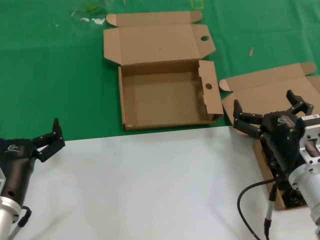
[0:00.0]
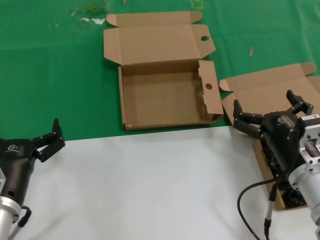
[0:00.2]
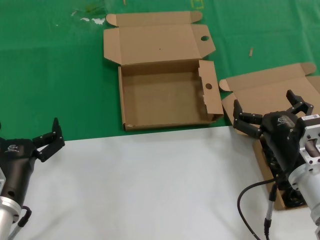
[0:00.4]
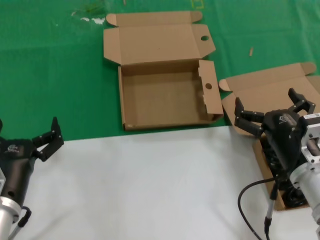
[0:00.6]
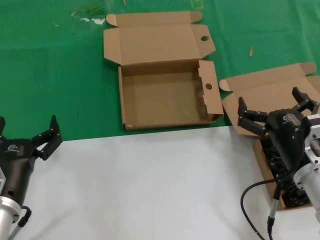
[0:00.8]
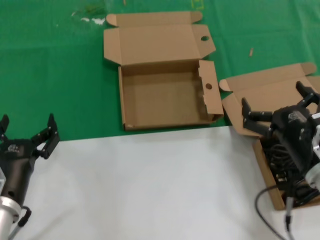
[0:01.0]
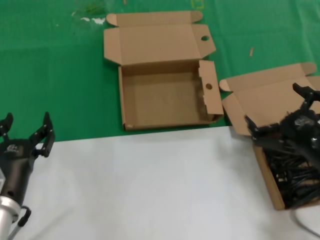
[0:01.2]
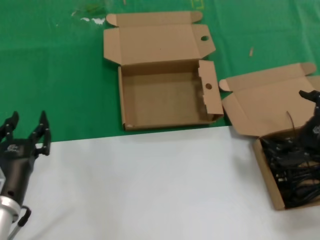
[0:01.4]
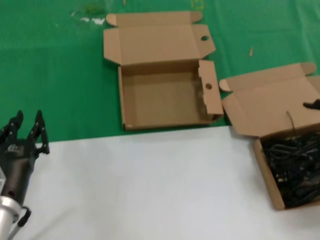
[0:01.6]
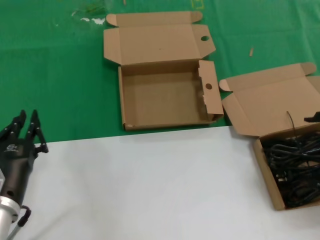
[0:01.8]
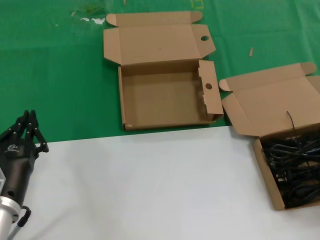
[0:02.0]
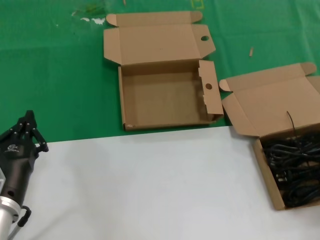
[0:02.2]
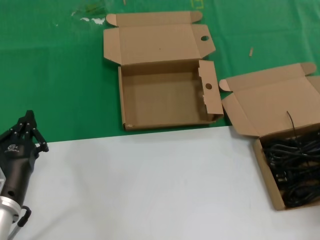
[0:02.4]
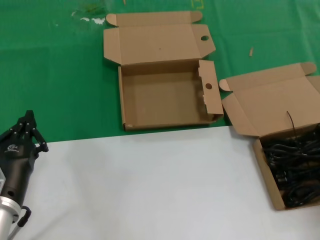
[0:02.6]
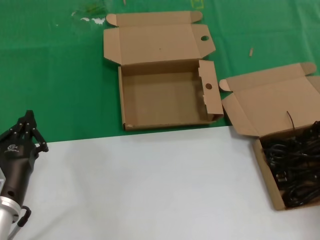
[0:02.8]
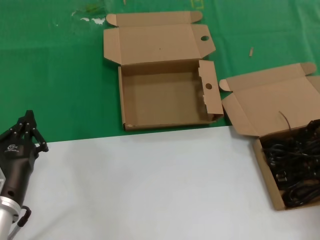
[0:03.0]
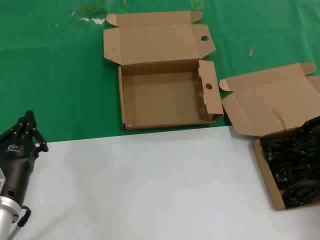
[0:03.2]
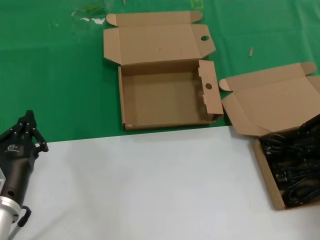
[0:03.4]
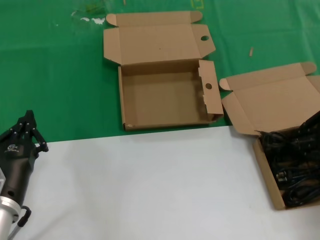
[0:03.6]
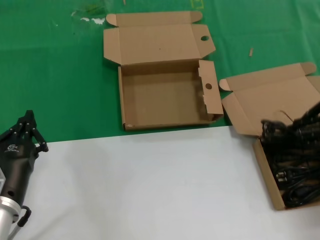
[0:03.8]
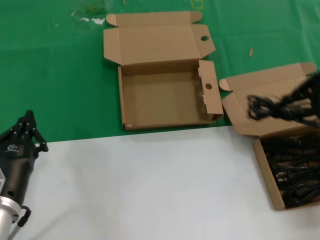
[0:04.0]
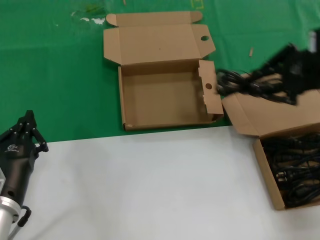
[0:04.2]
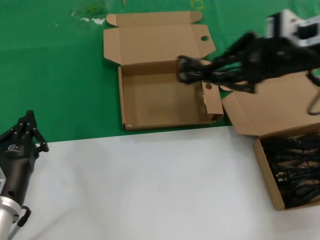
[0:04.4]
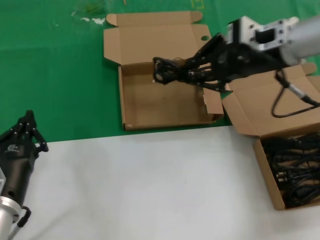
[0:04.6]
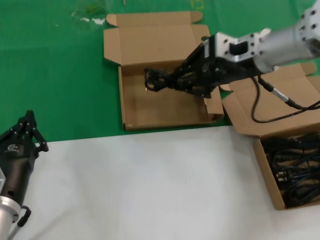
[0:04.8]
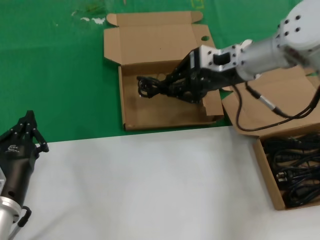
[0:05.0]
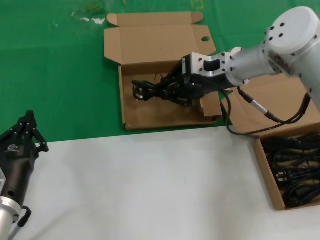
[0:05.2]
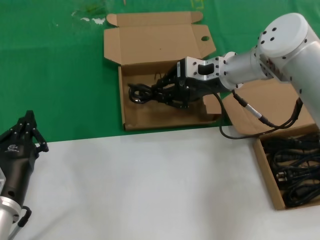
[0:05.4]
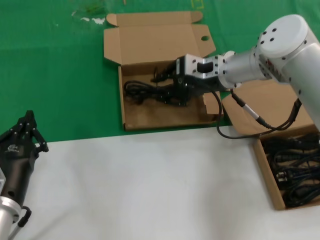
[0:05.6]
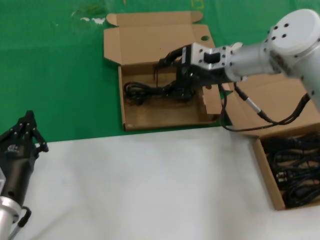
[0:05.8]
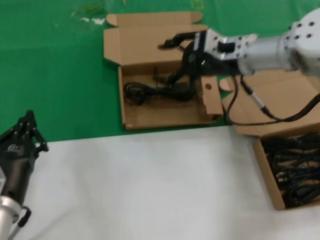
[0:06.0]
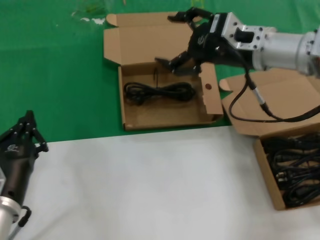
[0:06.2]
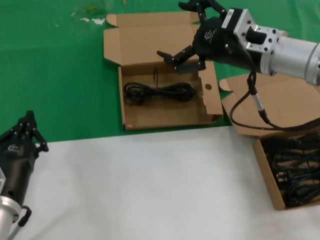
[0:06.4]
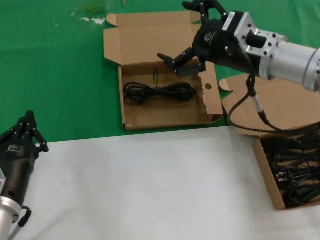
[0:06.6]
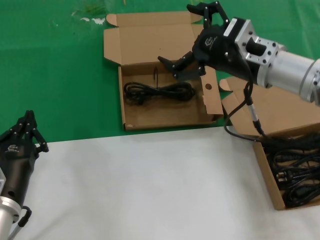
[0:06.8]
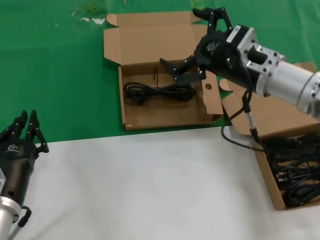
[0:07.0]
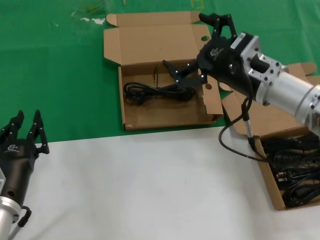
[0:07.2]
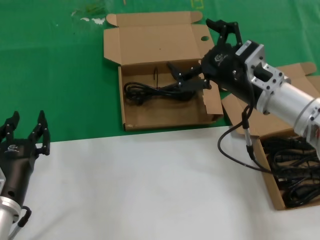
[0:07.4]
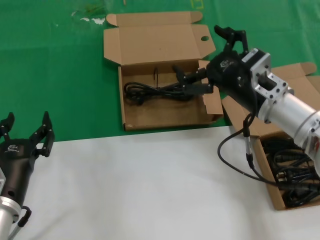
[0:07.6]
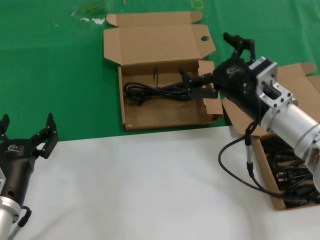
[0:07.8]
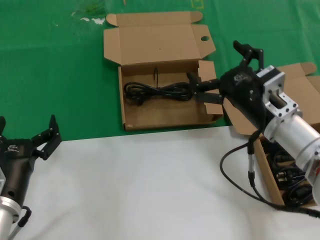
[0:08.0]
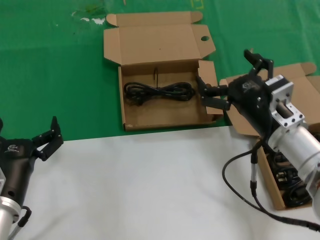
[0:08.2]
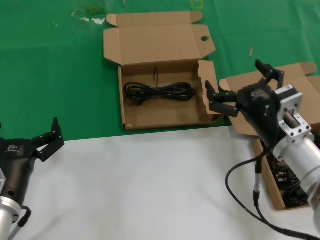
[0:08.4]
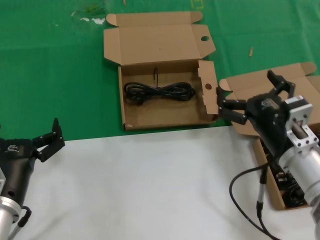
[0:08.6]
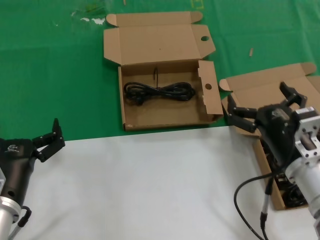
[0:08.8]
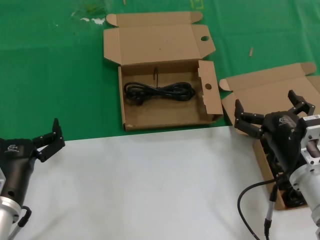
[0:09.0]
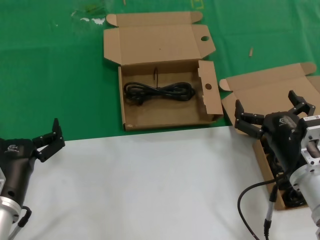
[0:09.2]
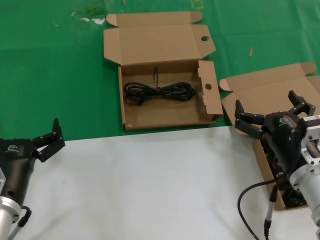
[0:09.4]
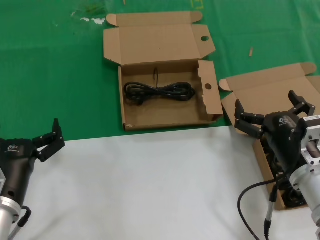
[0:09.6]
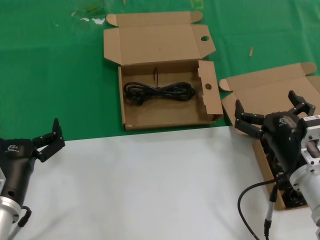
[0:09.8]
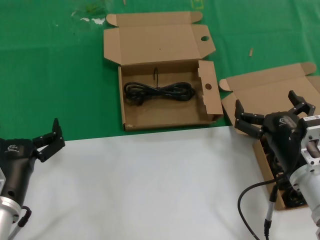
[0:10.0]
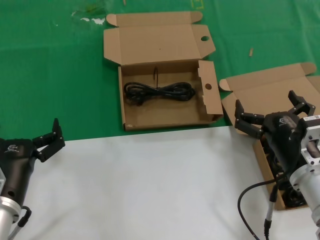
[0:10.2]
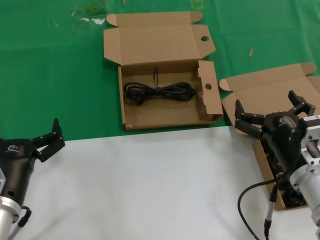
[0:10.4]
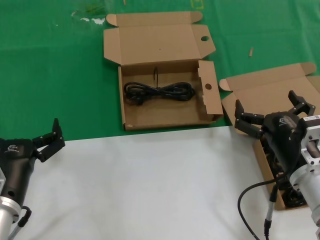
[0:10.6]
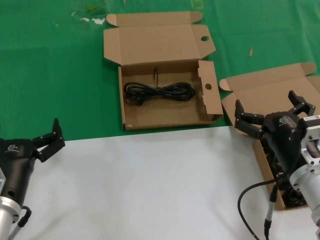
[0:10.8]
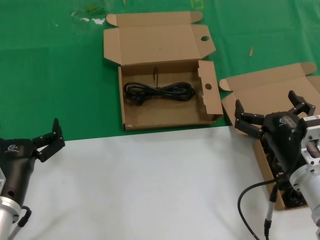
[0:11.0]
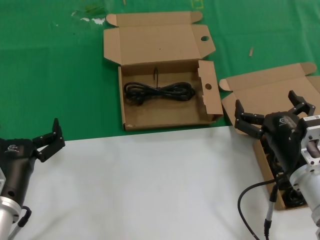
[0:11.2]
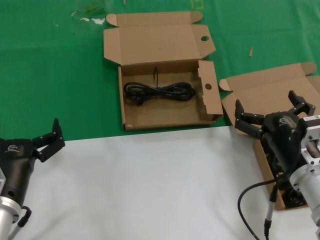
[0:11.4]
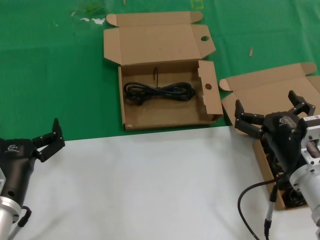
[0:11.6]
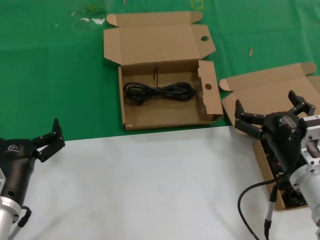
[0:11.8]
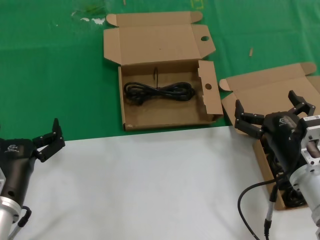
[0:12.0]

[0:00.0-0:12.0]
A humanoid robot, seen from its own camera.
Task of the whole recording: take the parts from the box containing them and put them into an empty box.
Step, 0:00.0 to 0:03.0: Grasp the data cable.
Step, 0:03.2 to 0:05.8: Place the data cable in the another box.
0:00.0 to 0:01.6: The right hand is displaced to the right and upward by approximately 20 cm.
0:01.6 to 0:03.0: The right hand goes roughly 10 cm forward and to the right.
0:03.0 to 0:04.4: The right hand moves to the left and upward, some 20 cm.
0:04.4 to 0:06.0: The right hand goes approximately 15 cm forward, downward and to the left.
0:06.0 to 0:07.6: The right hand shifts approximately 15 cm backward and downward.
0:07.6 to 0:09.0: The right hand shifts about 15 cm backward and downward.
0:09.0 to 0:12.0: Neither hand changes place.

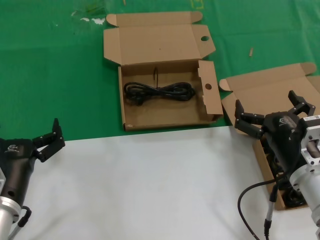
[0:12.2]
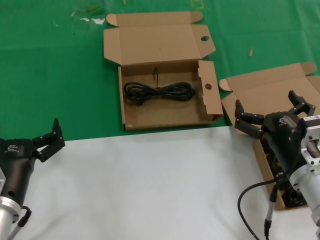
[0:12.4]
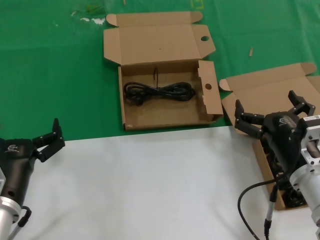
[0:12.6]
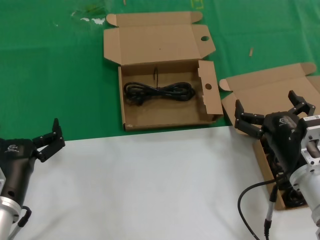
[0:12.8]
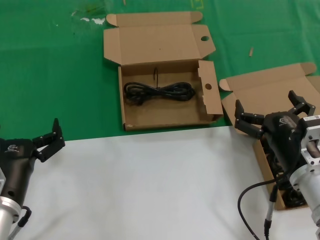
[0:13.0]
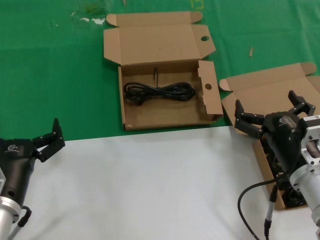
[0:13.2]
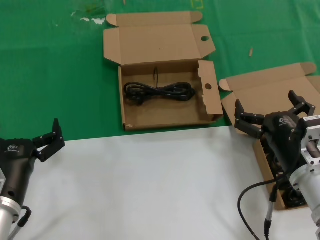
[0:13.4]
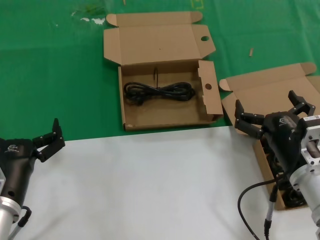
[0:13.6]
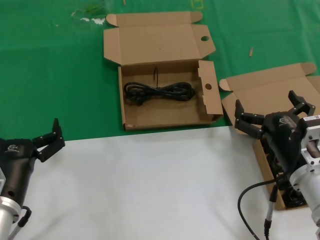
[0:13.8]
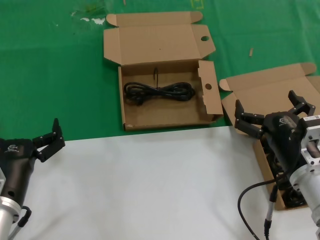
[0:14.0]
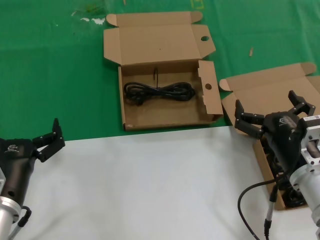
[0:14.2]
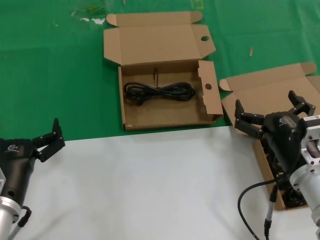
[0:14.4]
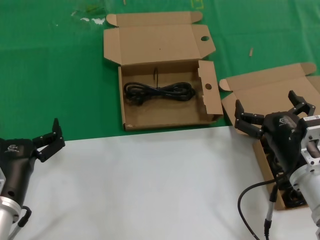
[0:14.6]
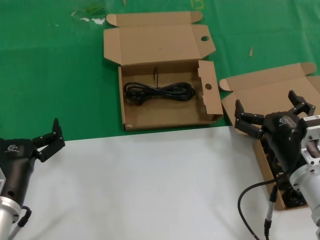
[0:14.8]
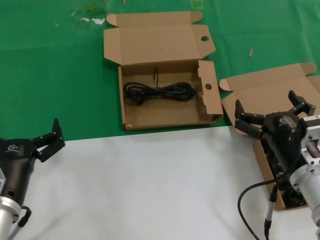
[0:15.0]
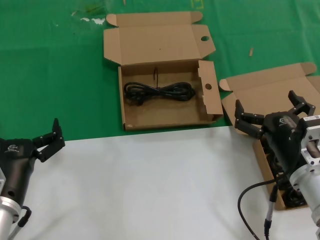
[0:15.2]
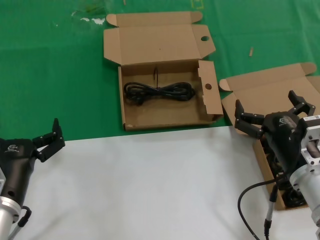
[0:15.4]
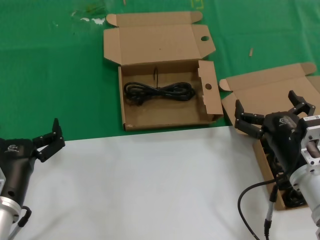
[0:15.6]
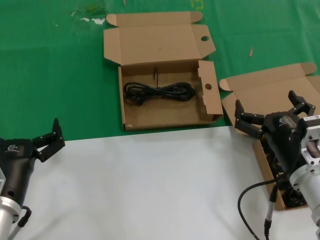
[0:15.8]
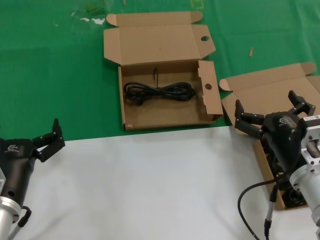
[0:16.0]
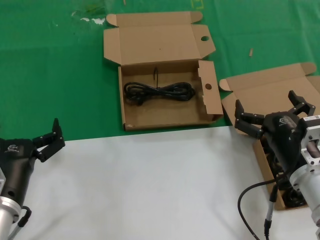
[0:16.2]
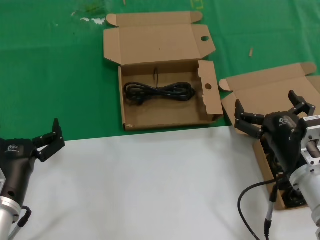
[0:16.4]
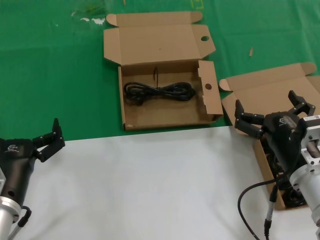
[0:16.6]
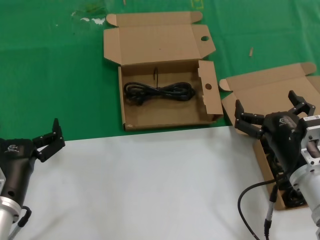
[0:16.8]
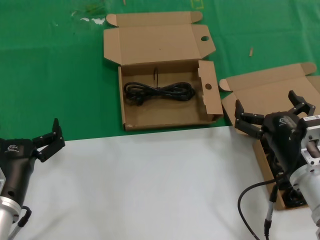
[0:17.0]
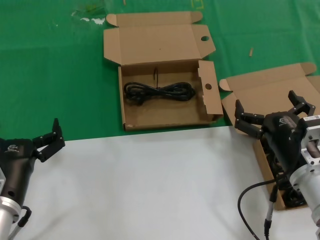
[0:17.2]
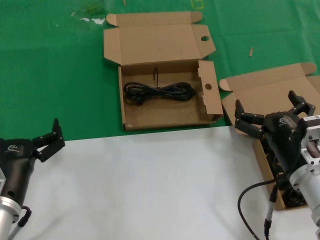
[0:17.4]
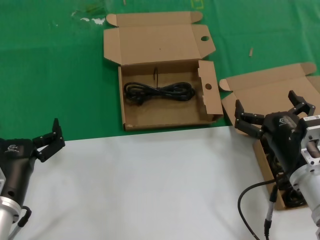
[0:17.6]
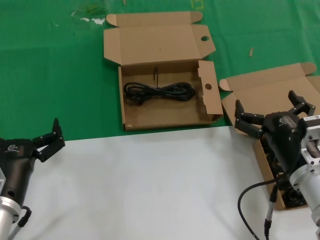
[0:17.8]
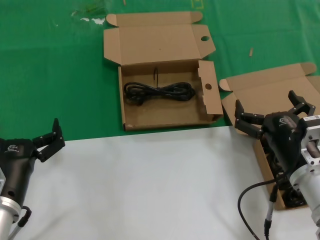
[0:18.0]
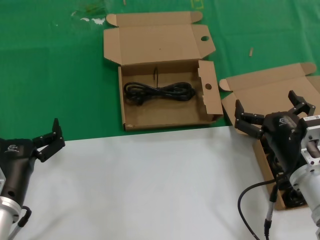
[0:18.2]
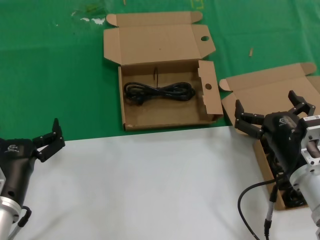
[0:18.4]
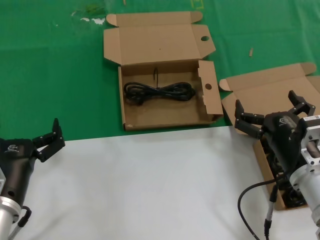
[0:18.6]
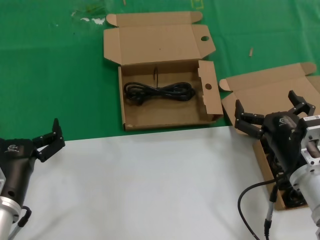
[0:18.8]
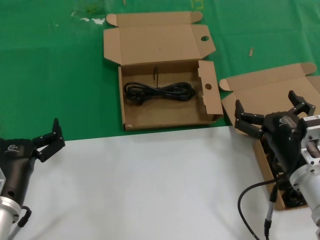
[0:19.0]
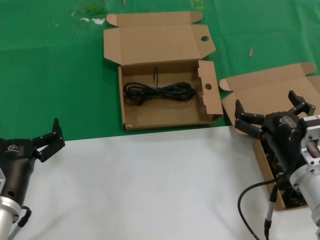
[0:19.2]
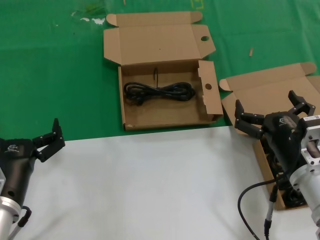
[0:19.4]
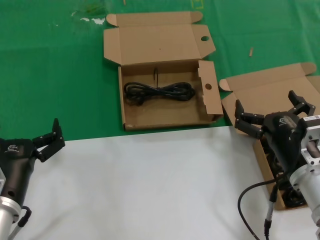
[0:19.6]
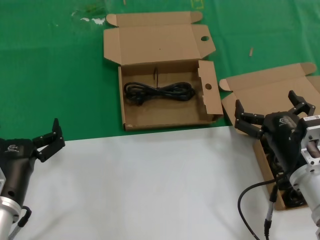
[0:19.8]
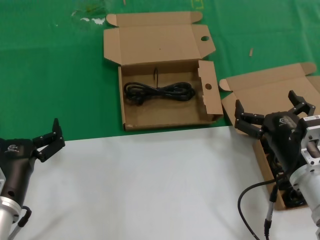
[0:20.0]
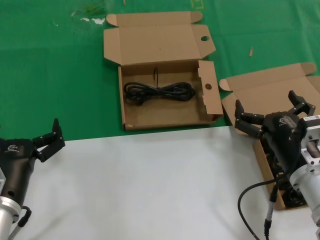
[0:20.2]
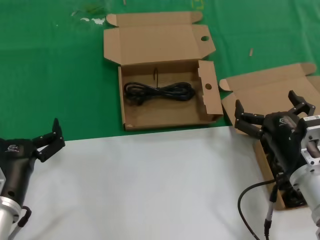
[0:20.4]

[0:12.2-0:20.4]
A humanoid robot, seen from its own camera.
Task of the whole recording: take the parts from the box containing them and put them into an empty box.
0:12.2 to 0:20.4: Both hands stay about where they are.
